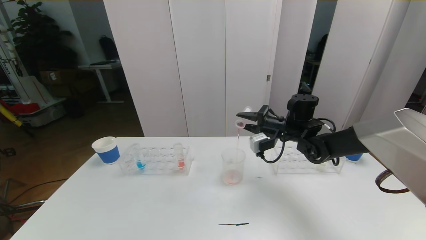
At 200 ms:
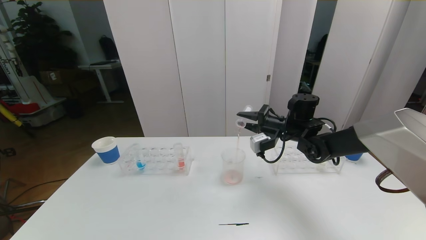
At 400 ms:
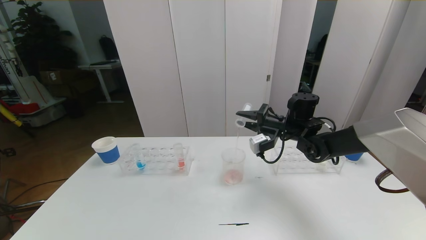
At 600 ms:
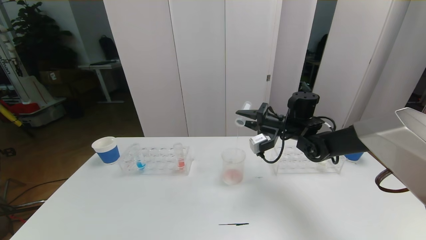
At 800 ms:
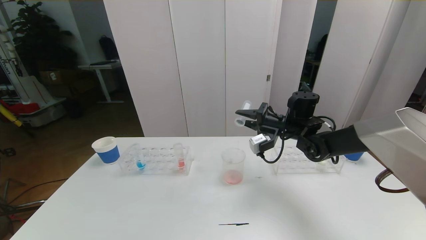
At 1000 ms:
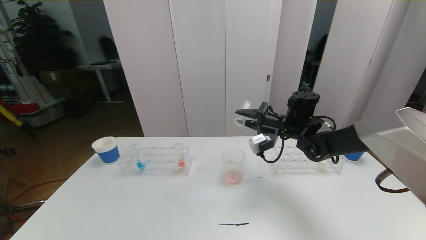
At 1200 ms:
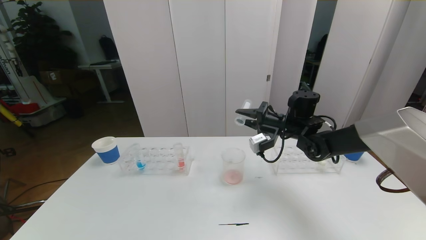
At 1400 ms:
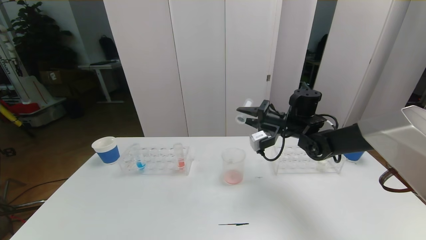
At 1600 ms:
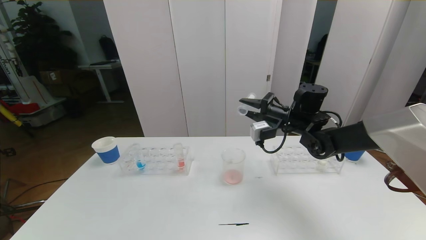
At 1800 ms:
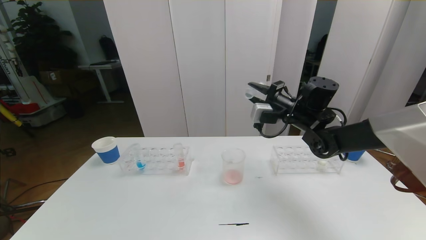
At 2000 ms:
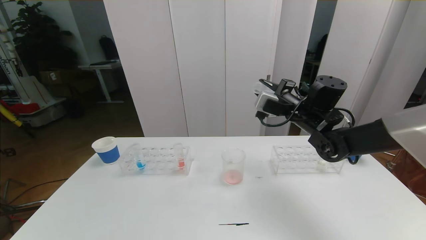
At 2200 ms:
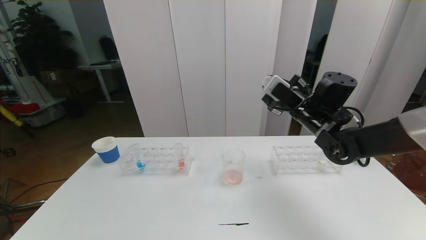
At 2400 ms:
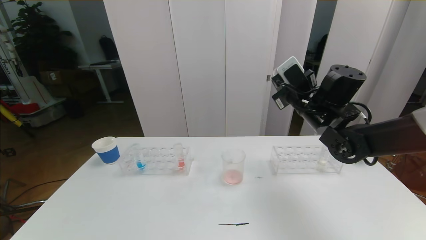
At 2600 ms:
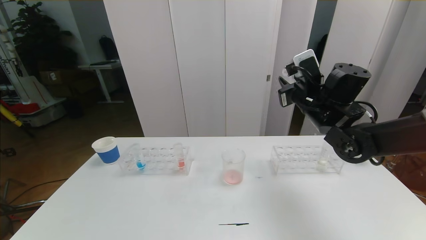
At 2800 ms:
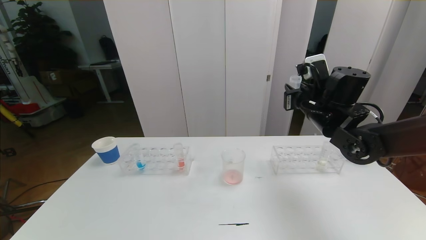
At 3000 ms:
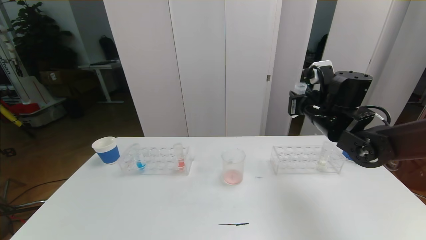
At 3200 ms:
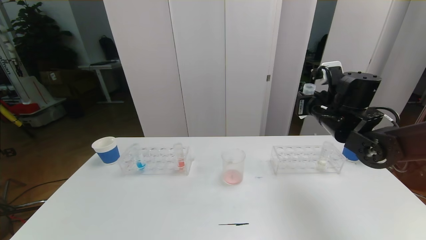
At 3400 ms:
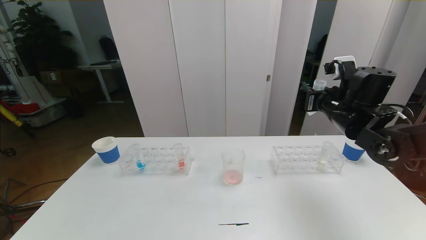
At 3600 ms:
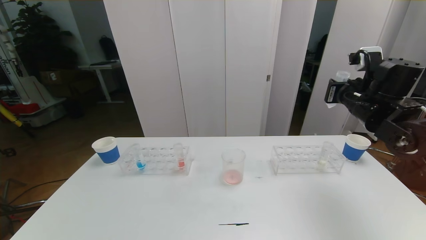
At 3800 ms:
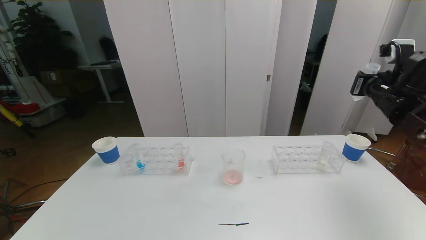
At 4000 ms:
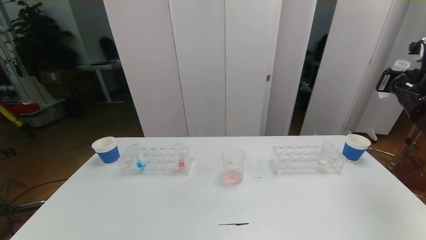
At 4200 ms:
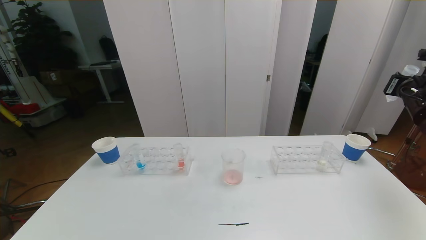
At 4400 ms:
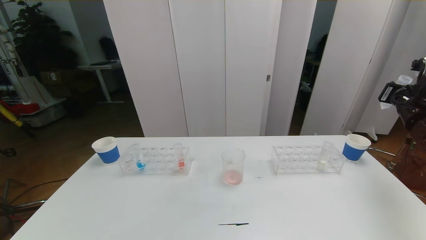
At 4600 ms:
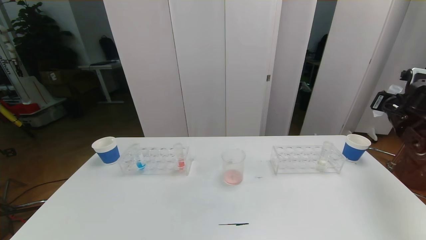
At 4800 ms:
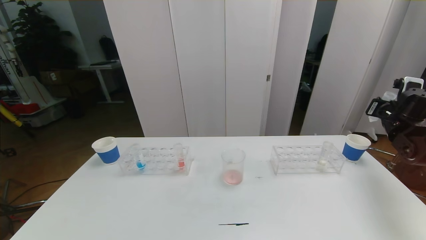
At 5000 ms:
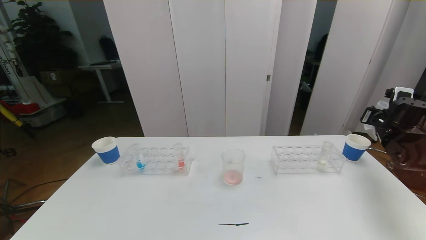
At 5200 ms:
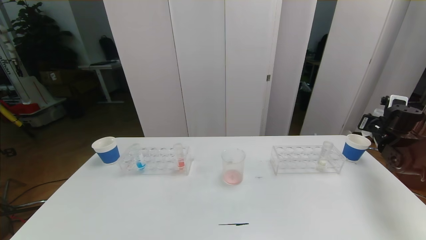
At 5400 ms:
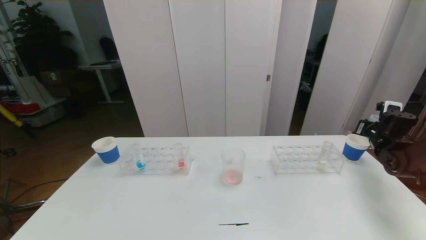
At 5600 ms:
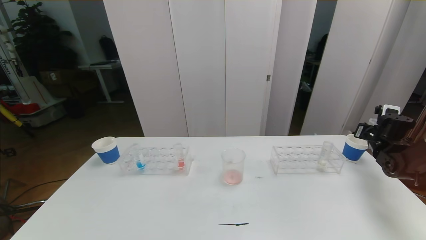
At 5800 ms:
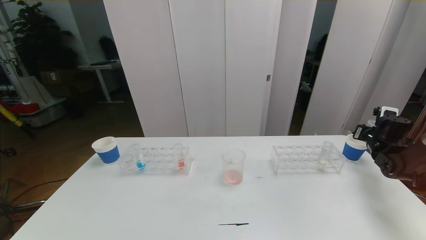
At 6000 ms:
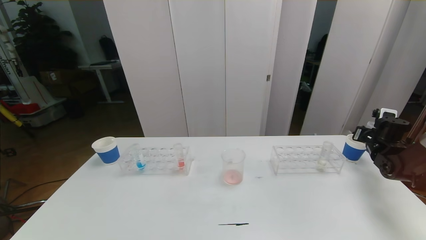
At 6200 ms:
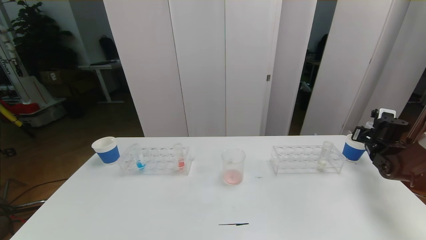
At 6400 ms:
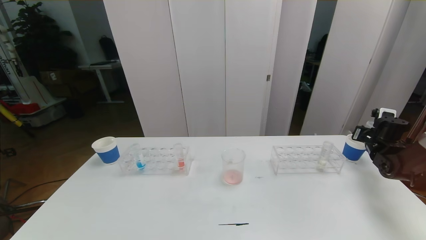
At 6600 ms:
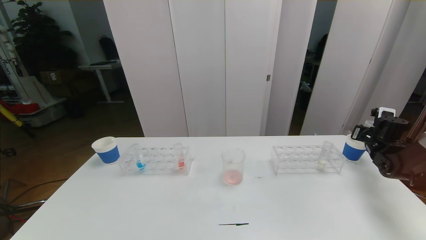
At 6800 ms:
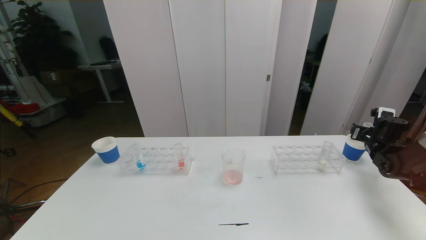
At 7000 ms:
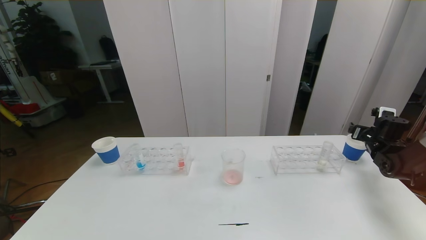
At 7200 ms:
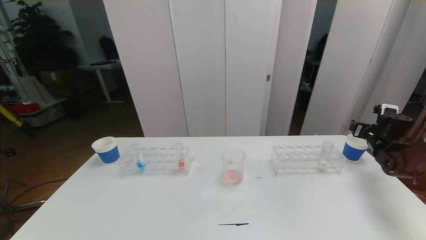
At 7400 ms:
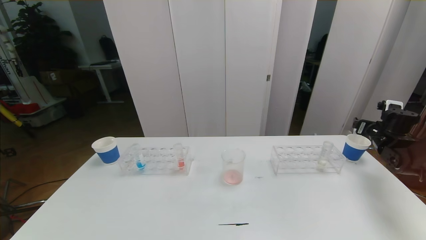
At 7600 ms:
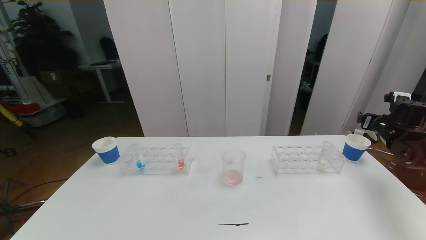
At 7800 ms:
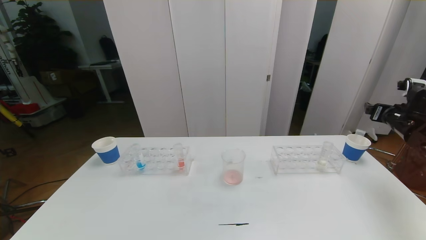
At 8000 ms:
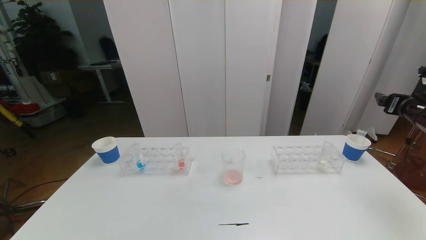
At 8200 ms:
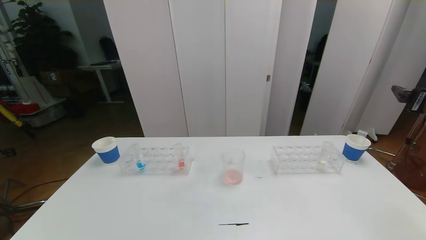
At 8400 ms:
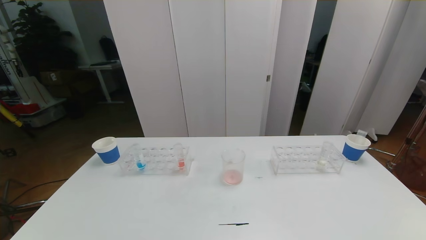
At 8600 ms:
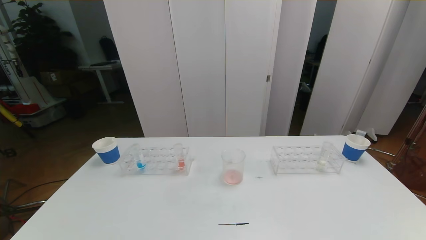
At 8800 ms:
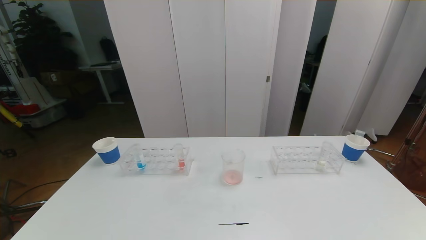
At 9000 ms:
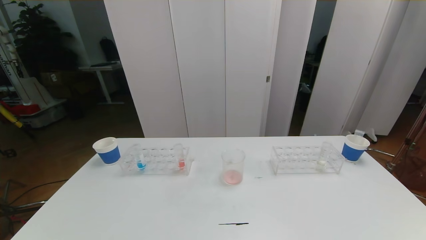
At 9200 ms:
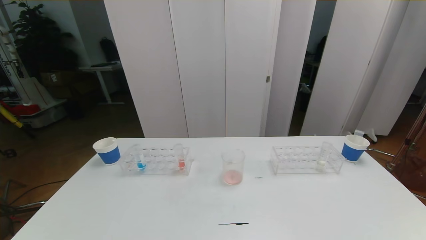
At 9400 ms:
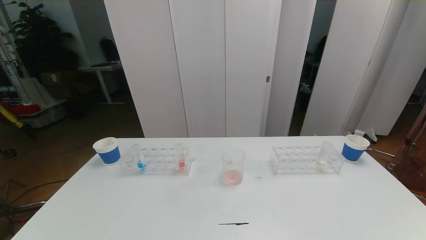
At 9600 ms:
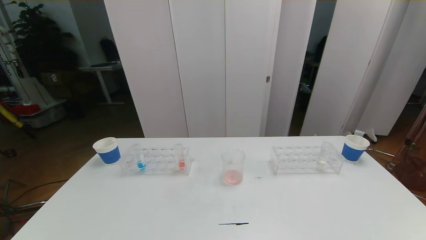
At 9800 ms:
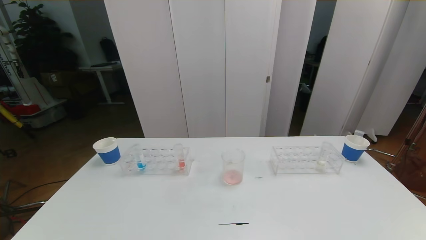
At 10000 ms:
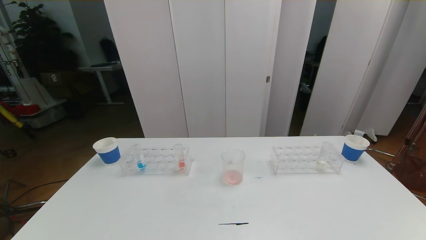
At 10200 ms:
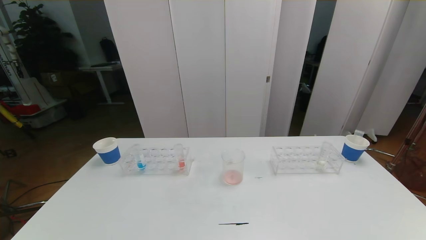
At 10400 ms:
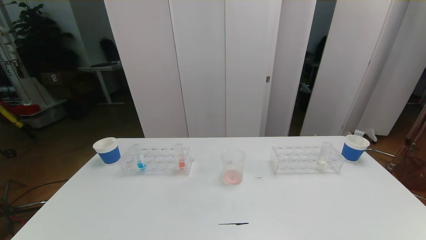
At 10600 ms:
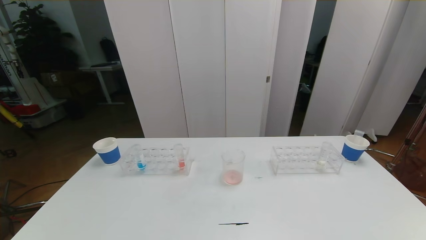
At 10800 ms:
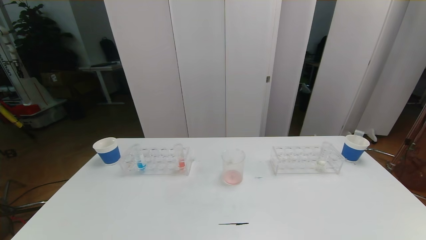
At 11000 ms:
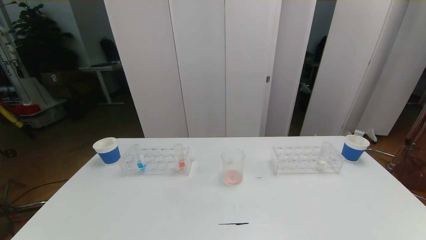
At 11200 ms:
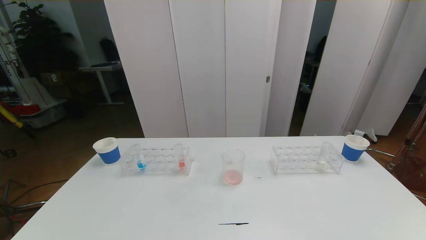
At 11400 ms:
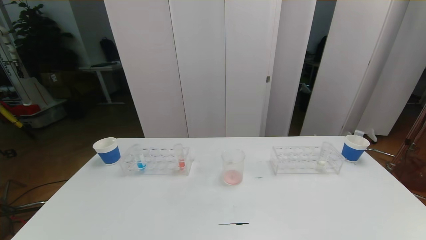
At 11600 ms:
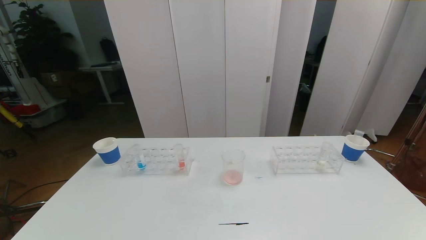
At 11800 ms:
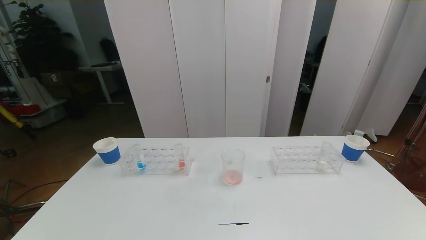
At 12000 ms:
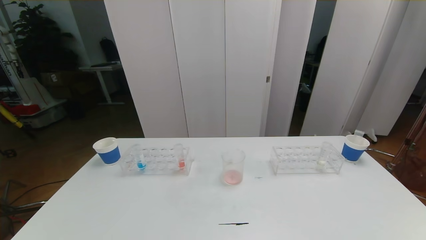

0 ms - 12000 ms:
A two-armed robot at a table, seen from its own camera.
Task of the whole recording: pick up the test tube with red pigment the test tube with blue pigment and the test tube with white pigment by grippers and pour them into the beaker.
Step, 0 ms - 11000 ms: Pour the red reagent into the graduated cylinder and place the test tube into the paper cup.
0 ms - 1600 ms: There are only small adjustments of the grippers.
1600 ms - 3000 ms: The right gripper travels backward by some 5 cm.
3000 ms - 4400 ms: The right gripper moves to the right, some 20 cm.
4400 ms - 6000 ms: The right gripper shifts some 15 cm downward.
6000 ms - 7600 ms: The right gripper goes approximately 5 cm upward, and opens its fingers.
7600 ms - 9000 ms: The right gripper travels backward by some 40 cm.
10400 ms - 12000 ms: The two grippers keep their place.

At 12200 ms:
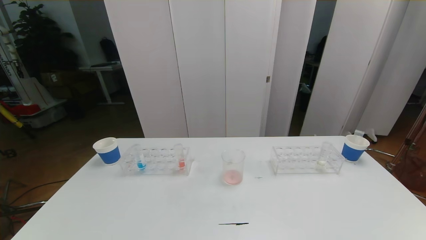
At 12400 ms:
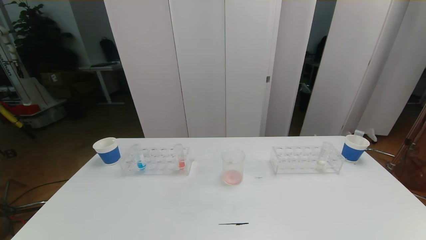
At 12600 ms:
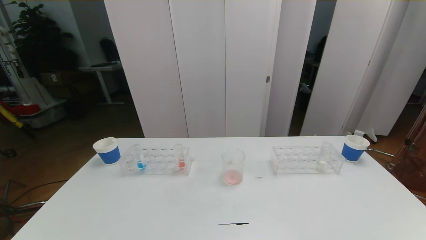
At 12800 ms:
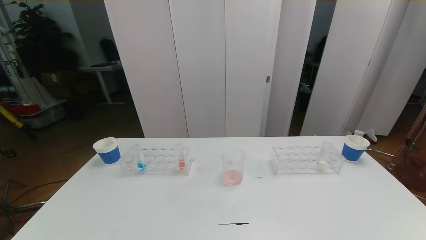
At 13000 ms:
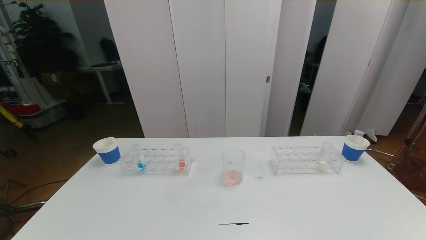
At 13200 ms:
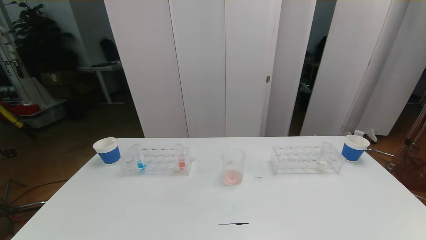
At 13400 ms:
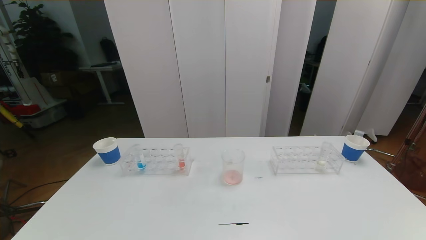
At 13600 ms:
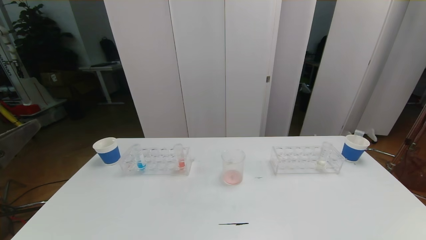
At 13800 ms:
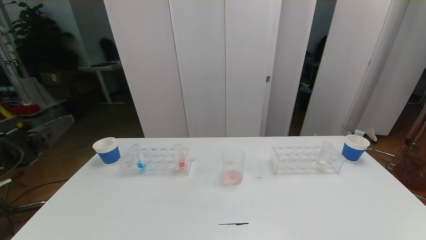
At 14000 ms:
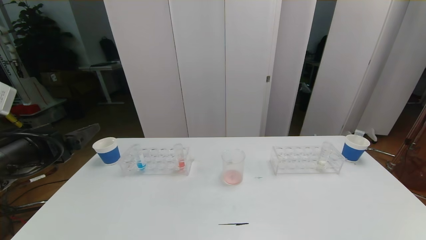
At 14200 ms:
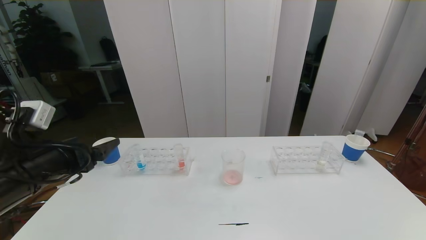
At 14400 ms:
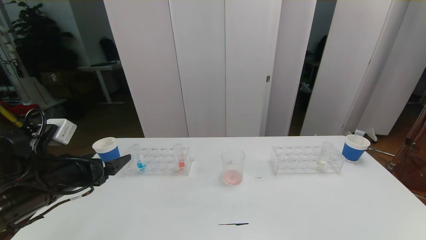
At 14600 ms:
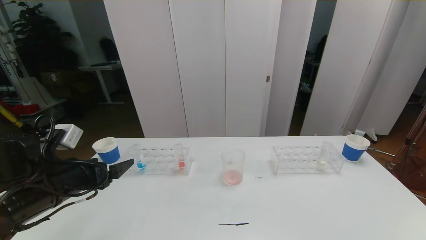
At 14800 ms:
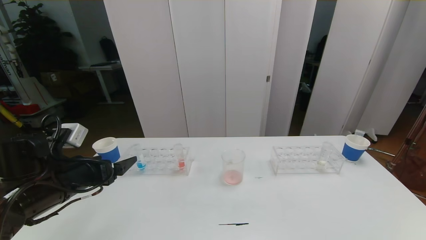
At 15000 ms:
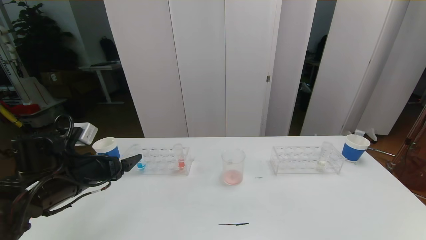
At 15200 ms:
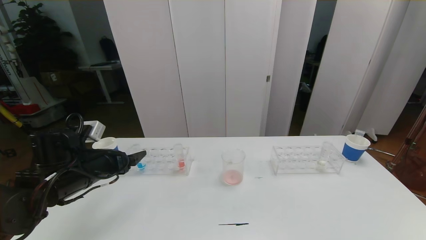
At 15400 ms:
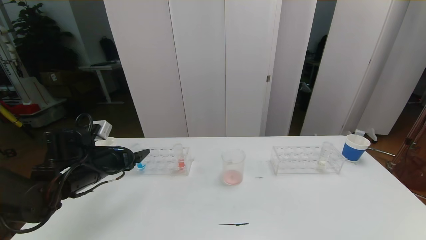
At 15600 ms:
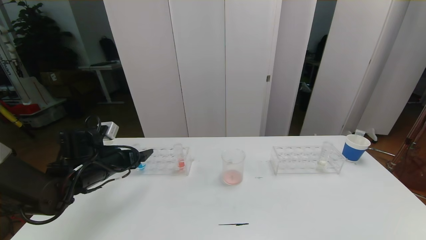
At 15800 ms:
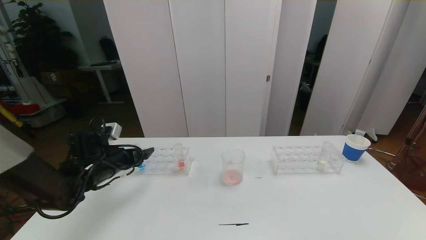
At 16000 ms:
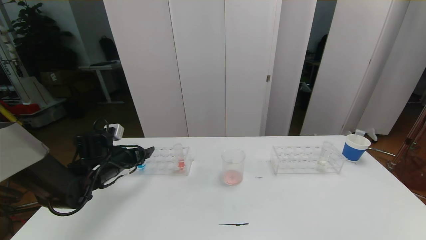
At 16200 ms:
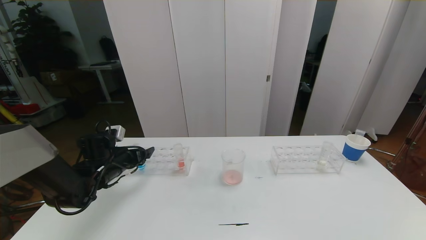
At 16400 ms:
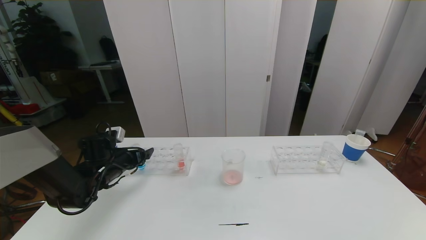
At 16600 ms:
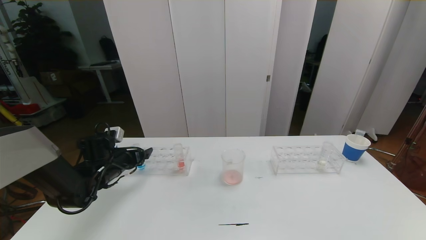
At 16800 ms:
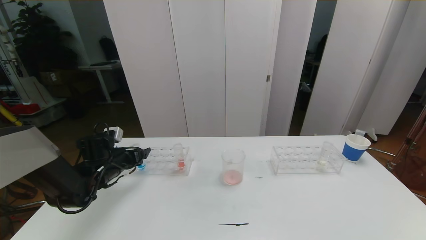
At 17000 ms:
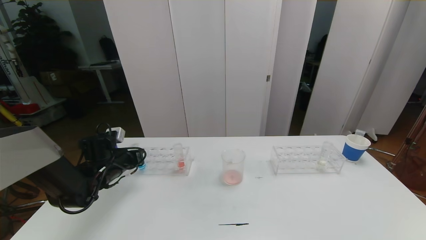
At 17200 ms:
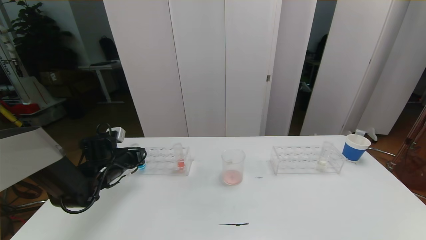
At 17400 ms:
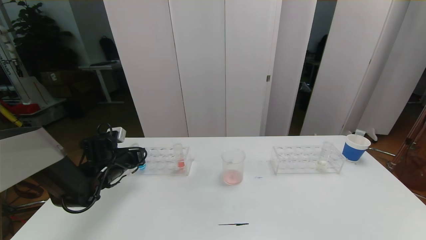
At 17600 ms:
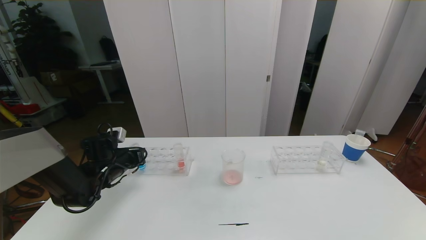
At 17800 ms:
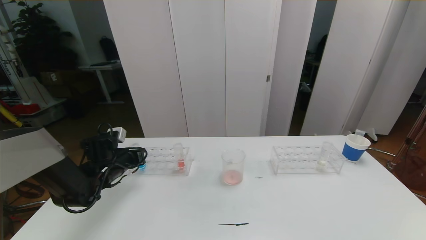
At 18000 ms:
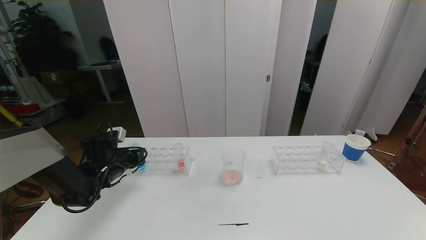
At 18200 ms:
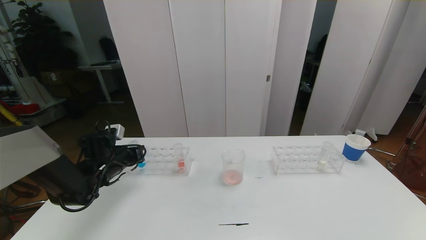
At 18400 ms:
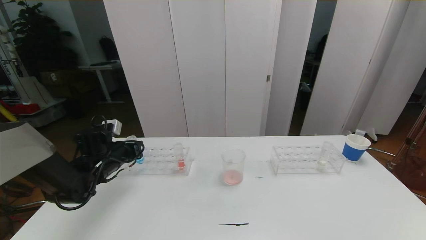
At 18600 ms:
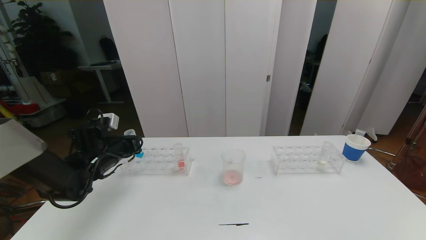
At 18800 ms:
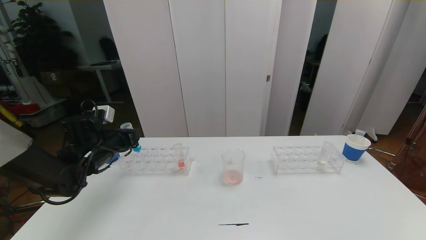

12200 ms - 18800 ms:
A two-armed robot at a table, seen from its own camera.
Task of the whole recording: pick up the test tube with red pigment the test tube with blue pigment and the test tube with white pigment by grippers and pour them into the beaker.
13800 ms - 15400 ms: The left gripper moves forward and downward, roughly 20 cm.
15400 ms - 17200 ms: The left gripper shifts about 10 cm forward and downward, and closes.
17200 ms - 18800 ms: The left gripper moves upward, about 5 cm.
